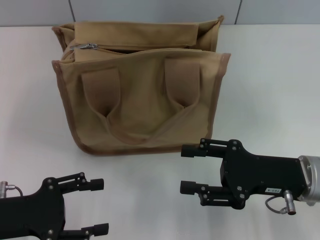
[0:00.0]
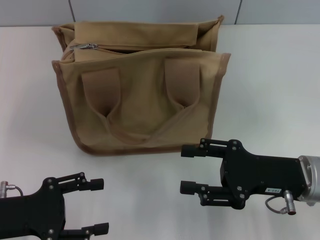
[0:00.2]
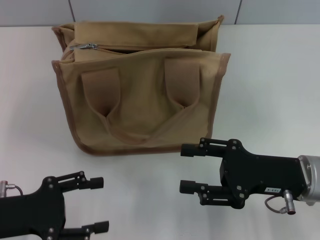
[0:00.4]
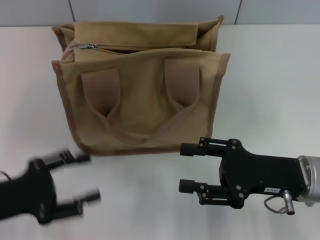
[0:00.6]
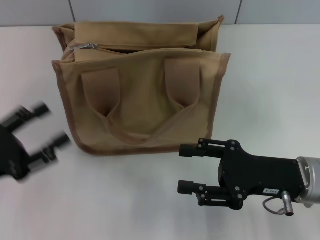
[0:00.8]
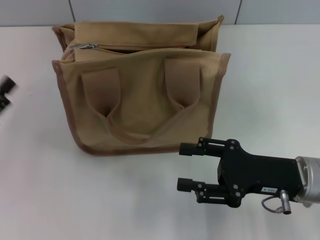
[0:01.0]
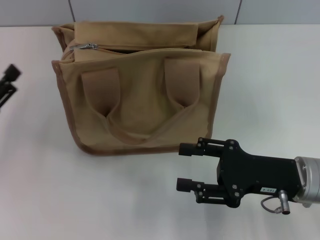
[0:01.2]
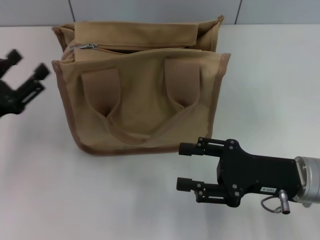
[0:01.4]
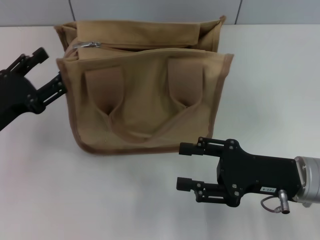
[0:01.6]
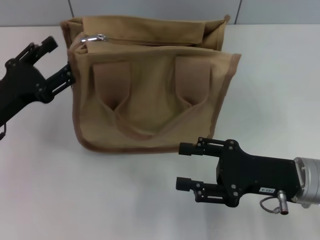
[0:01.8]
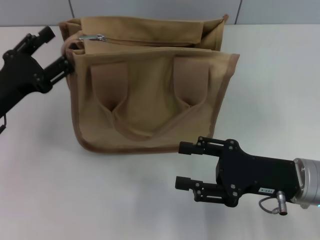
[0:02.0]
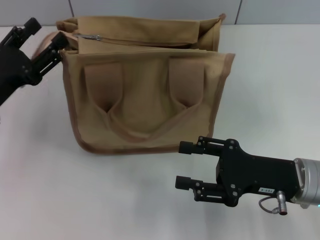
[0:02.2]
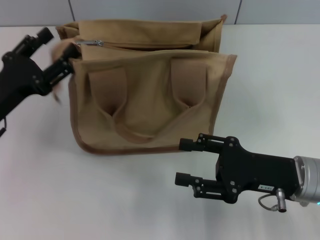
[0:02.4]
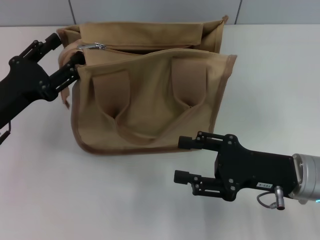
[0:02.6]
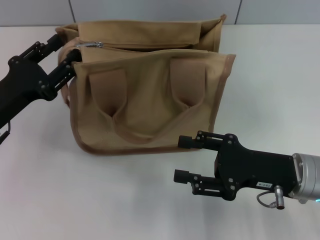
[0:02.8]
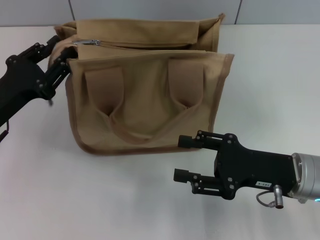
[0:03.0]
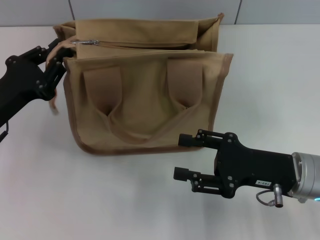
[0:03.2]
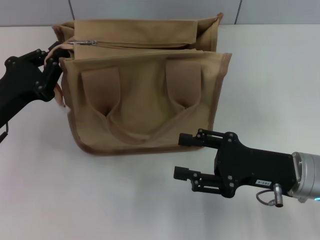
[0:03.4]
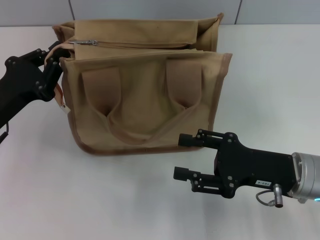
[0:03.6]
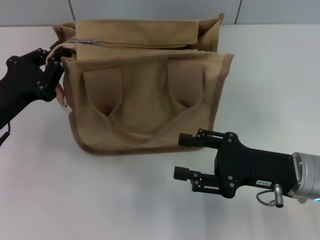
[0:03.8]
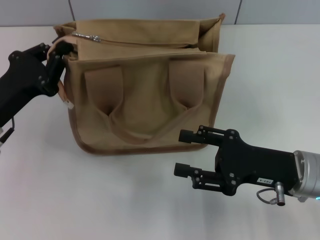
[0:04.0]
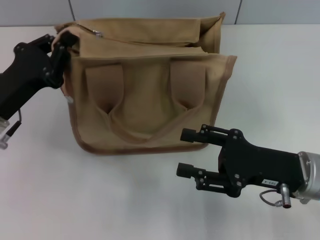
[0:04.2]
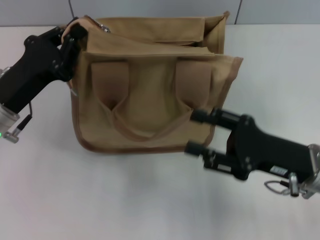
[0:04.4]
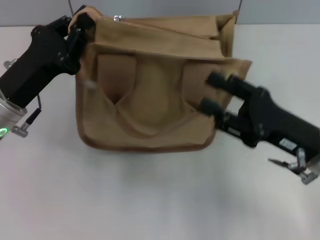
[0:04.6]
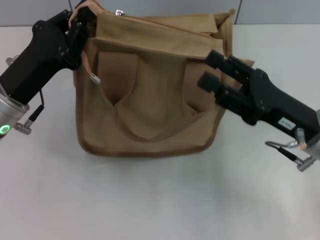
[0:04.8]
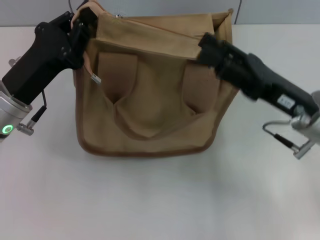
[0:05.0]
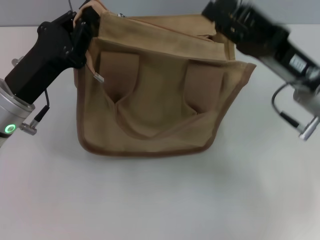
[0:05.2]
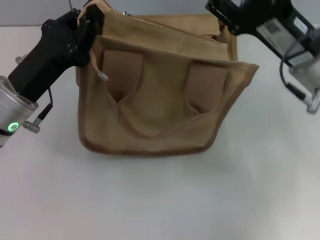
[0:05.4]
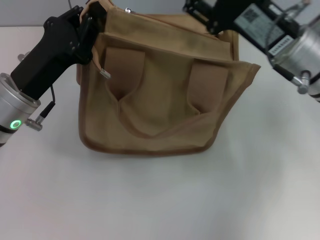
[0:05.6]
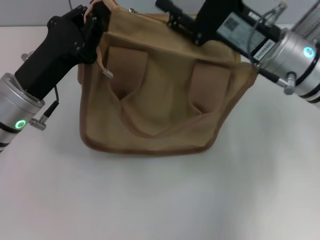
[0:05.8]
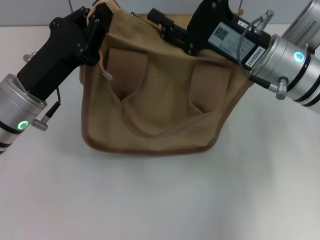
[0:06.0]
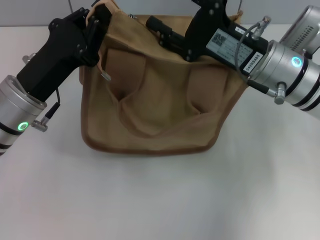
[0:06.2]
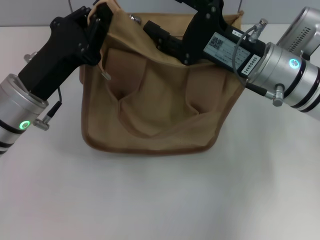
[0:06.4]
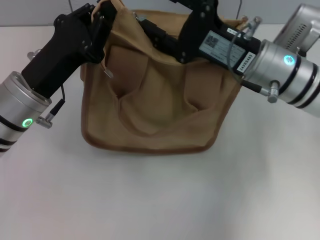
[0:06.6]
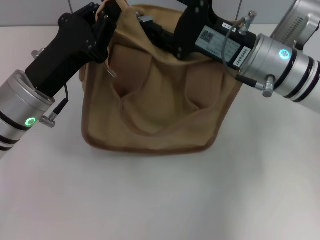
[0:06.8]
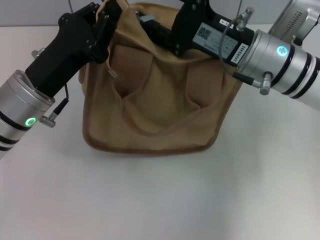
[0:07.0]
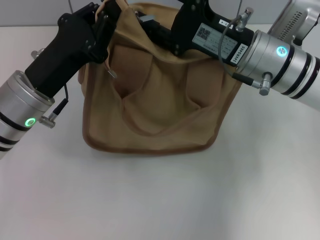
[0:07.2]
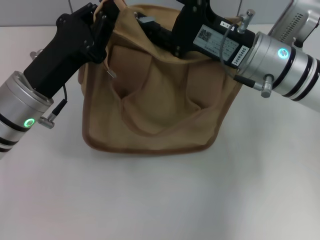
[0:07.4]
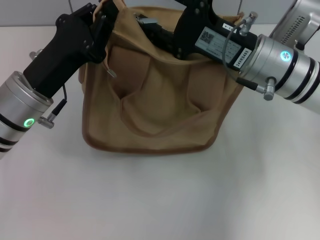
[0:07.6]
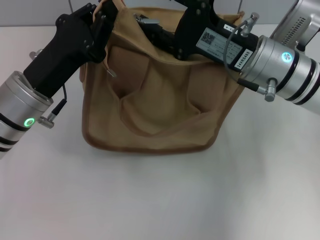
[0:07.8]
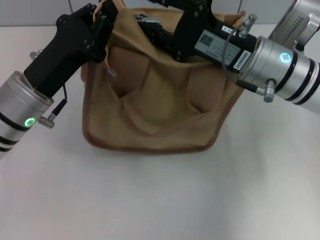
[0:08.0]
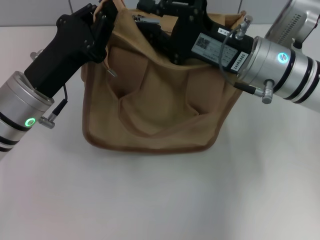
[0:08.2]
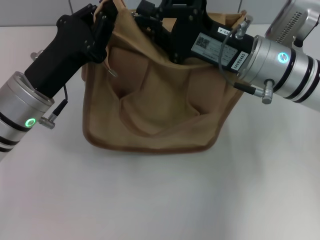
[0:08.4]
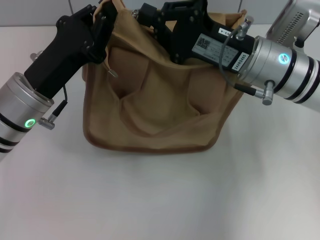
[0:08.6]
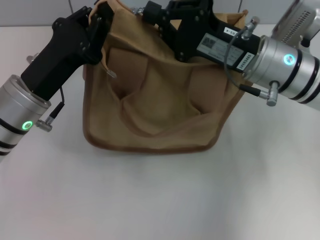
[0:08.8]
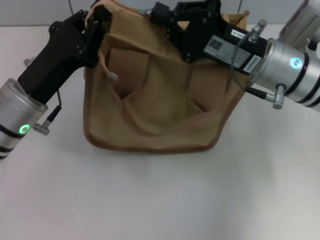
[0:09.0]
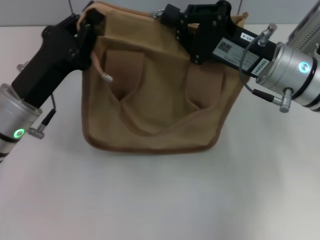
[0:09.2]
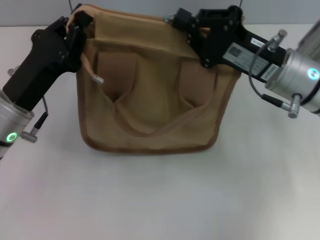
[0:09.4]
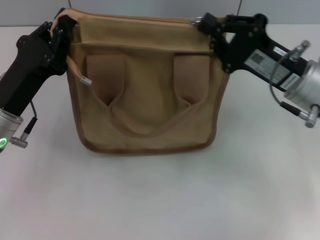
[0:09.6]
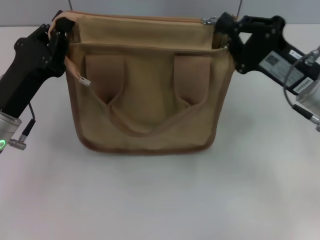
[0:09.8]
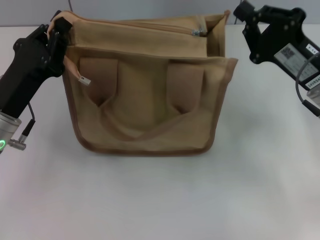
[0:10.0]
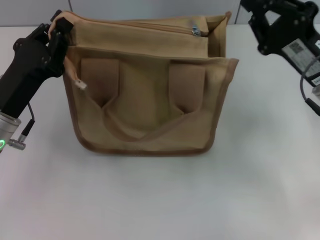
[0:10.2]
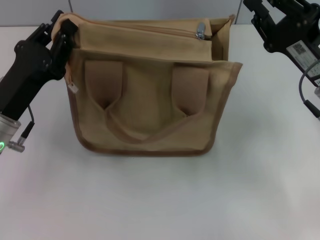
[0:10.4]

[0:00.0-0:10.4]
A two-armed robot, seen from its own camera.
Step, 0:00.0 to 0:09.8: Pull up the zipper with your right hand.
0:00.0 to 0:01.4: The left gripper travels forward by some 5 cm.
0:01.4 to 0:03.0: The left gripper closes up.
0:03.0 to 0:04.4: The left gripper closes up.
0:04.4 to 0:06.0: The right gripper is displaced forward, upward and to the left by approximately 15 cm.
0:06.0 to 0:07.4: The grippers make only small movements.
0:07.4 to 0:09.0: The right gripper closes.
0:09.0 to 0:10.4: The right gripper moves to the right, approximately 10 cm.

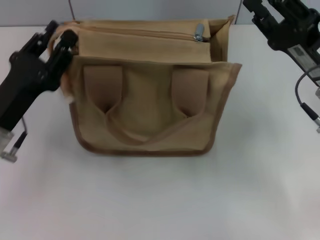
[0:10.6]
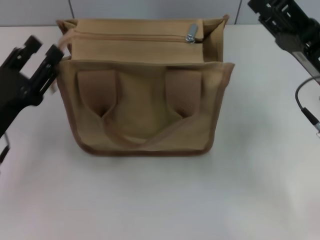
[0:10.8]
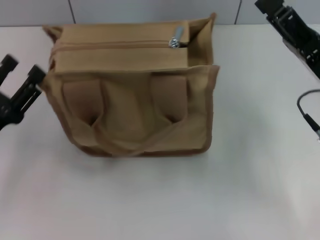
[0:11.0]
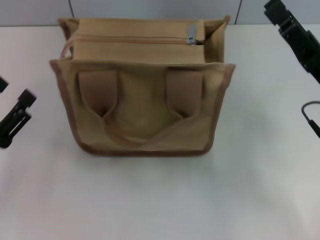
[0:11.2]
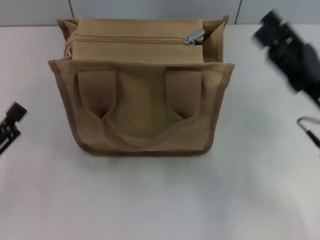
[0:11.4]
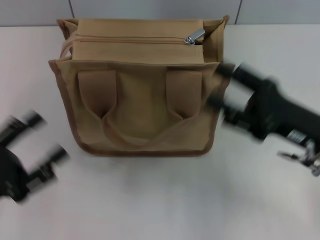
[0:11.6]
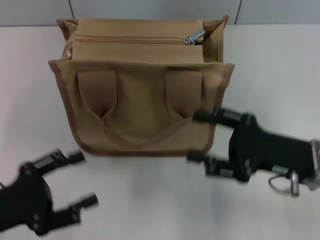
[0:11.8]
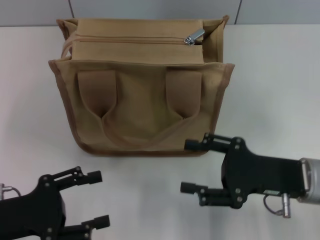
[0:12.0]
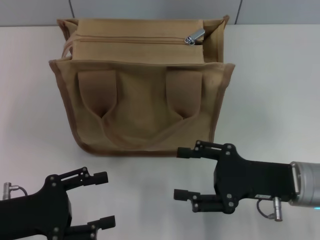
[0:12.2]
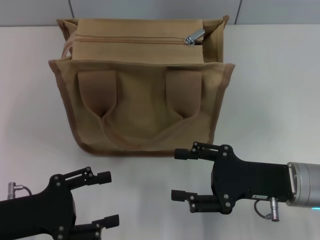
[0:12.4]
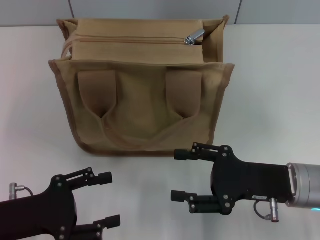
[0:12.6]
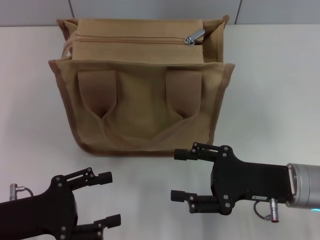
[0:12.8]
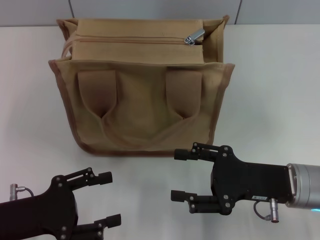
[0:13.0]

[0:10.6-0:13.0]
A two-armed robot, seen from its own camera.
0:10.6 to 0:11.8: The left gripper moves backward, some 10 cm, and opens up. The right gripper moves backward, some 5 cm, and opens up.

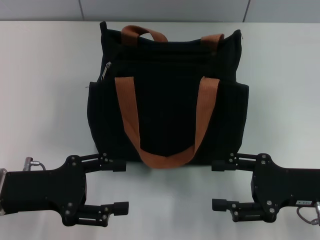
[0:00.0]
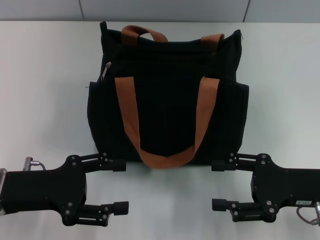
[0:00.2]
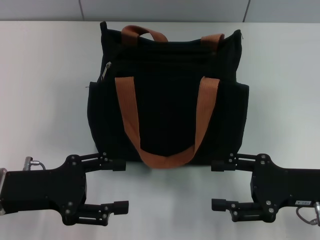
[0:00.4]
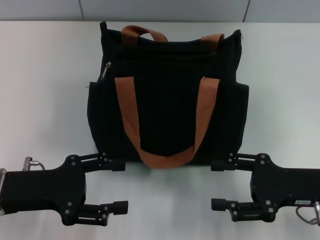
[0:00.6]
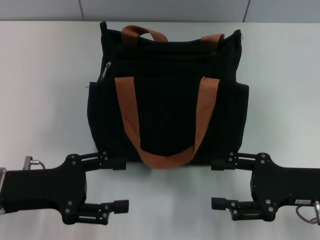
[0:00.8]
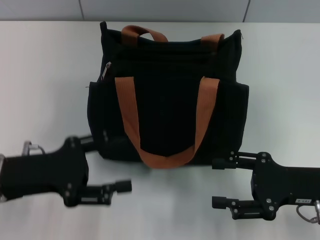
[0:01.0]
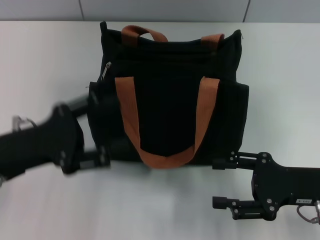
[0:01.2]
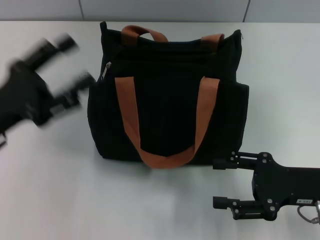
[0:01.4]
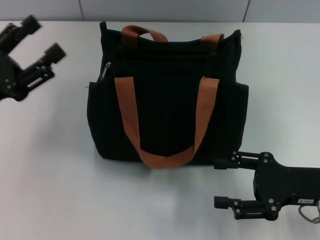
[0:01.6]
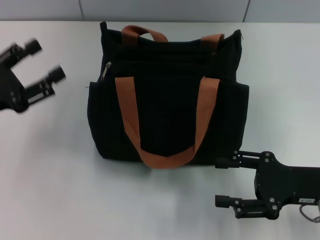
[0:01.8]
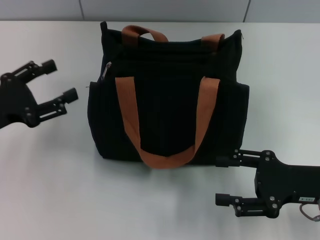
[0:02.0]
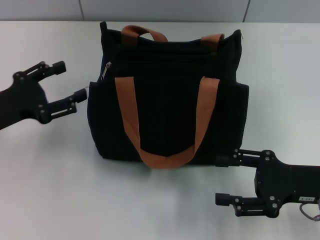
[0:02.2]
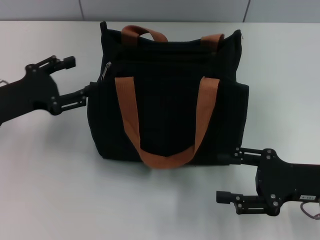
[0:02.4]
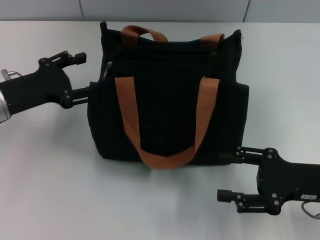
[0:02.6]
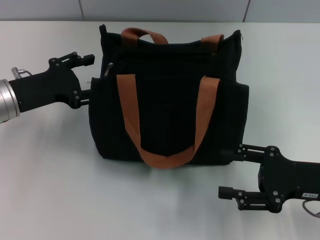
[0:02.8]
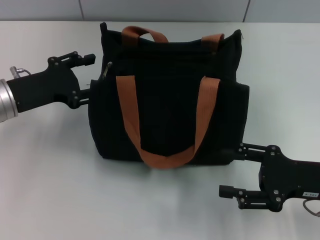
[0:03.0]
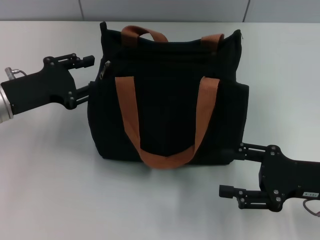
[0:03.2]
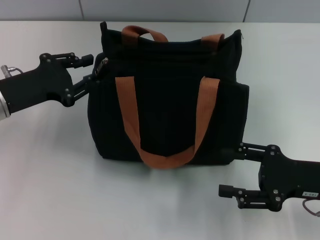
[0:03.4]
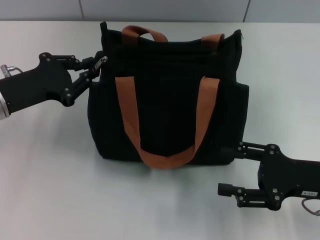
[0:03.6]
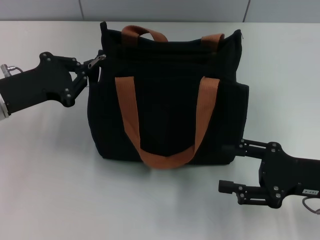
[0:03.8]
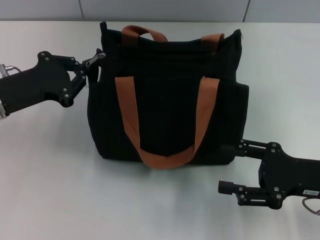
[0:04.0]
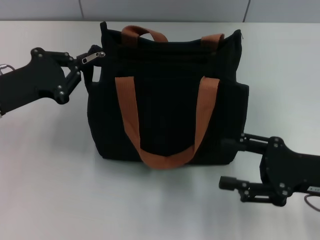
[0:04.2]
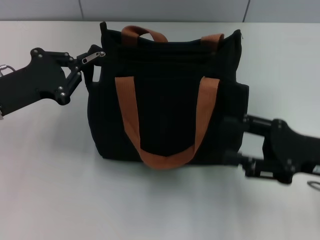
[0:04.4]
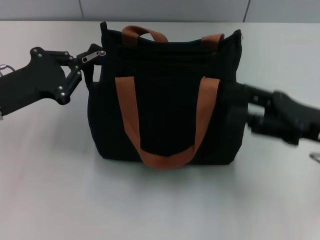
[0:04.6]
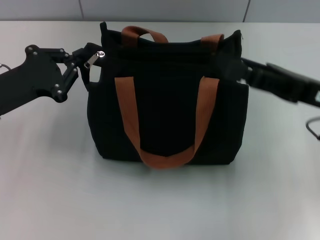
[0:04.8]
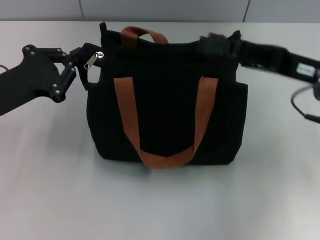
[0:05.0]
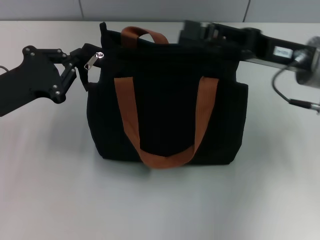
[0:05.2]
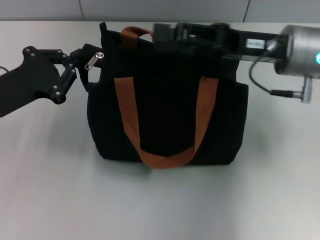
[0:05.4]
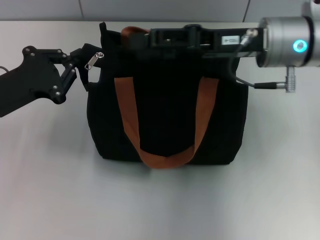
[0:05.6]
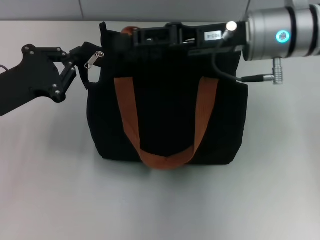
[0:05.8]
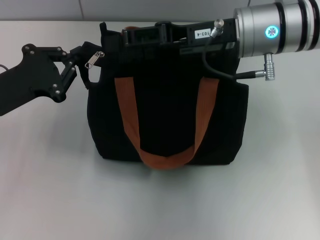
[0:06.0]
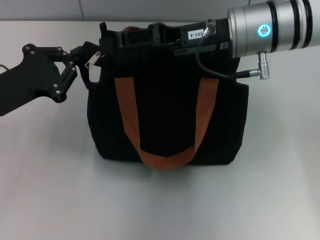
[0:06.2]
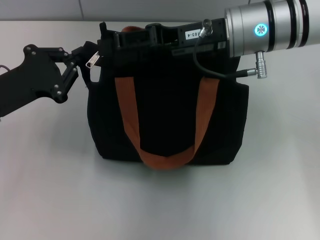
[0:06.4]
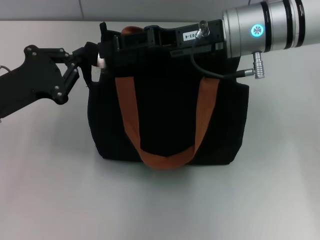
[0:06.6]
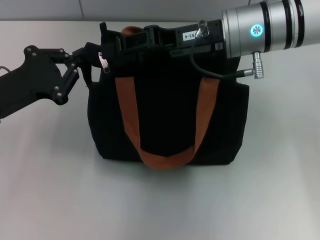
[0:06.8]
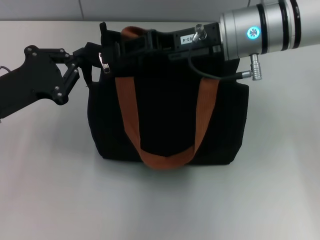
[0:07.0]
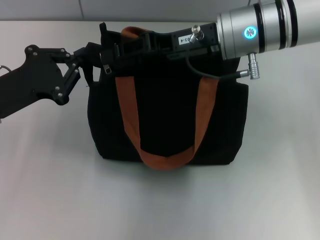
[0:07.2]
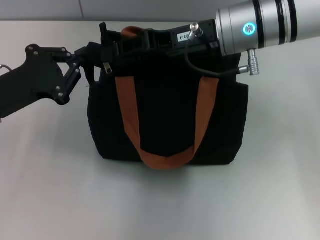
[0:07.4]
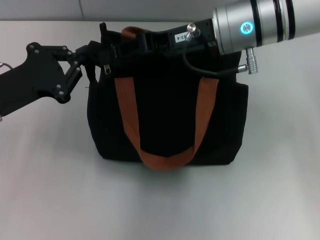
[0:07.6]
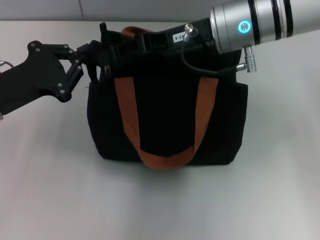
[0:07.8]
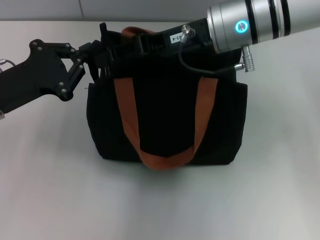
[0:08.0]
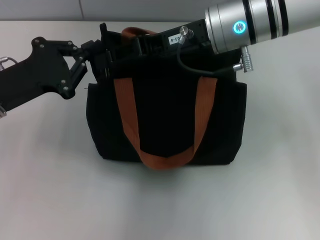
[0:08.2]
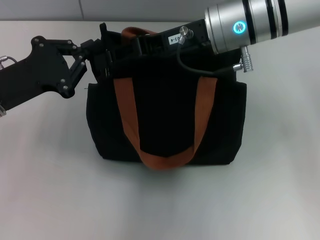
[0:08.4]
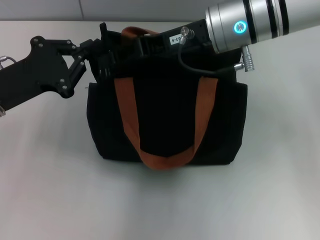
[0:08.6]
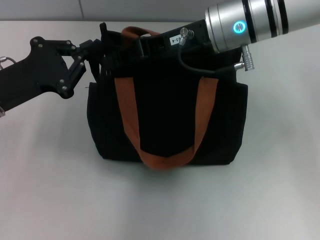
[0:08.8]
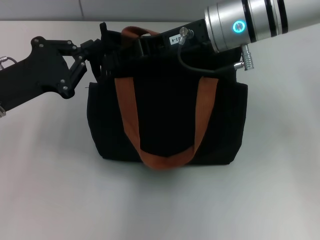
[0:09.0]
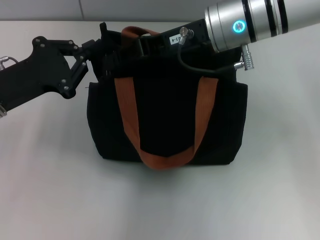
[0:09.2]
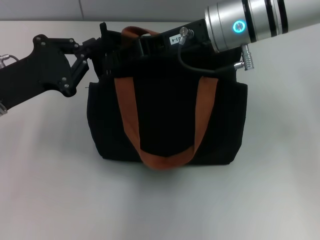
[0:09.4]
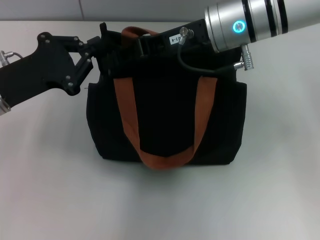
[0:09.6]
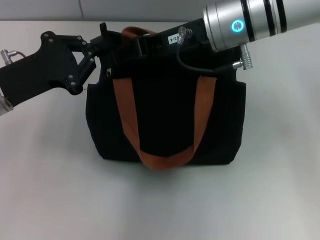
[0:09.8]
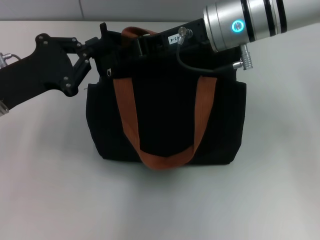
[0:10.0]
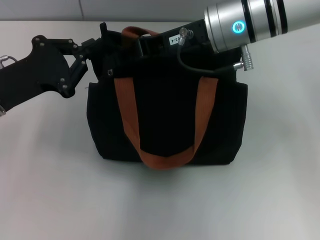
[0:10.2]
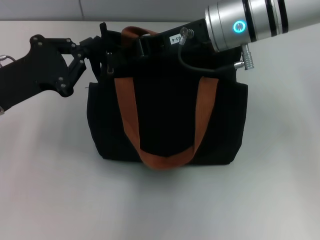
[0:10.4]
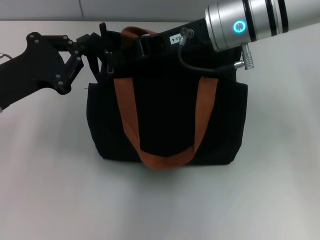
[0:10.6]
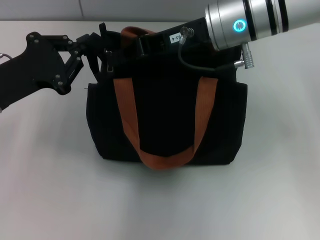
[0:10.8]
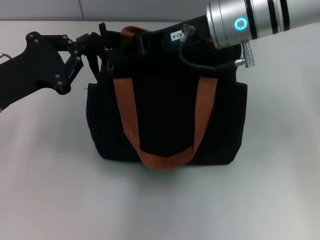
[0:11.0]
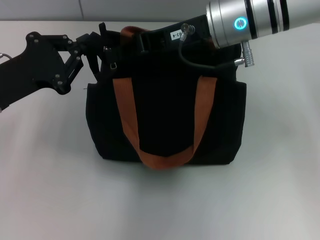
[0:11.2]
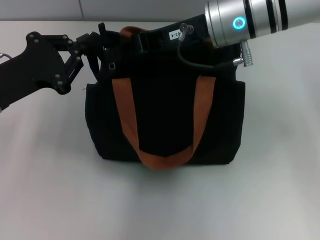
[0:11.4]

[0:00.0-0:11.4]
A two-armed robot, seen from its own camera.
0:01.4 to 0:02.8: The left gripper goes about 10 cm forward.
0:02.8 to 0:04.2: The left gripper closes its fingers.
0:04.2 to 0:05.6: The right gripper goes roughly 20 cm forward, to the left and upward.
0:05.6 to 0:07.2: The right gripper moves approximately 5 cm, and closes.
0:07.2 to 0:08.6: The grippers move only a little.
0:08.6 to 0:11.4: Both grippers stay put.
